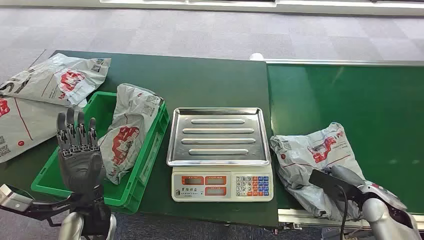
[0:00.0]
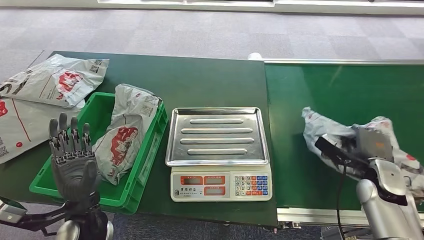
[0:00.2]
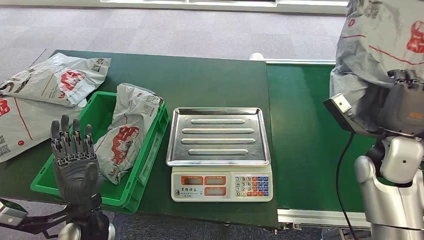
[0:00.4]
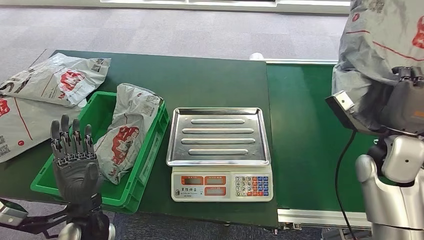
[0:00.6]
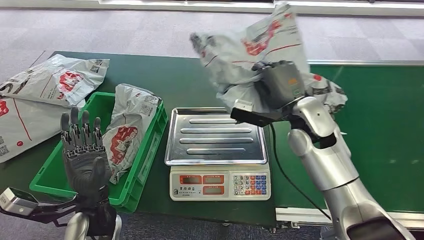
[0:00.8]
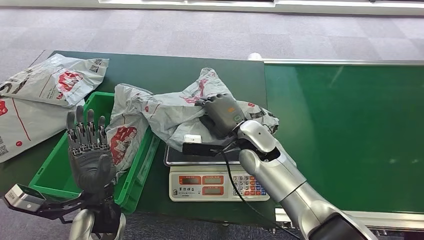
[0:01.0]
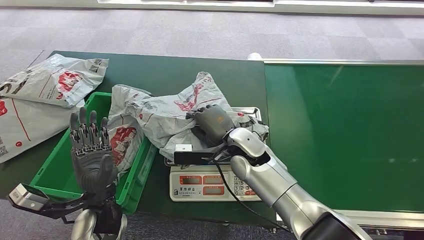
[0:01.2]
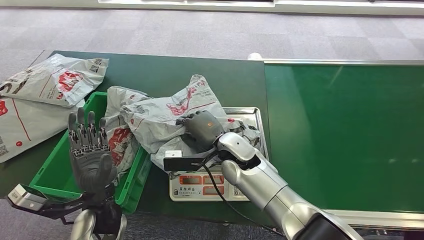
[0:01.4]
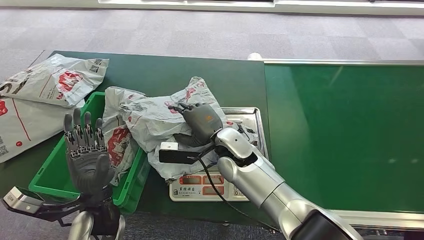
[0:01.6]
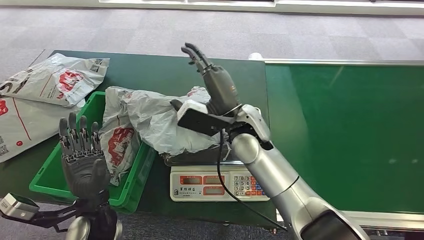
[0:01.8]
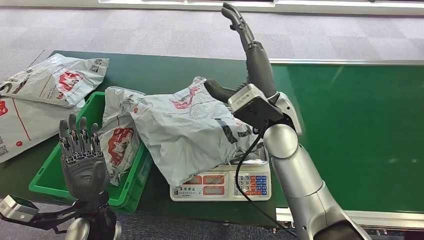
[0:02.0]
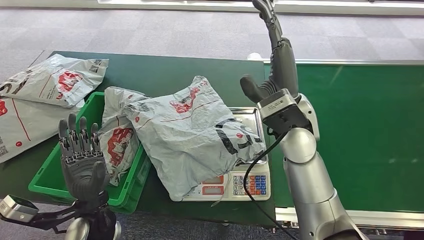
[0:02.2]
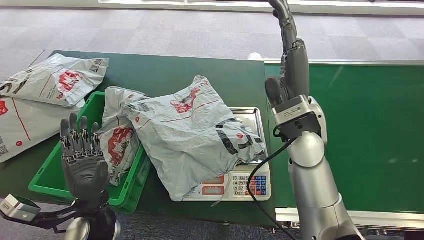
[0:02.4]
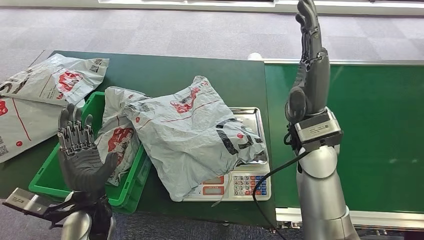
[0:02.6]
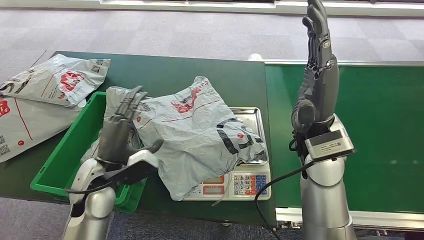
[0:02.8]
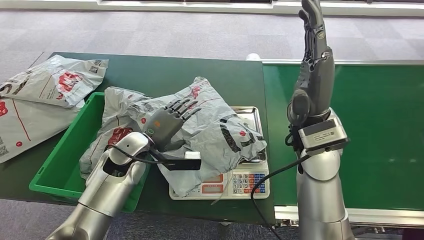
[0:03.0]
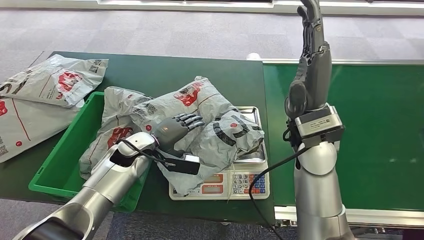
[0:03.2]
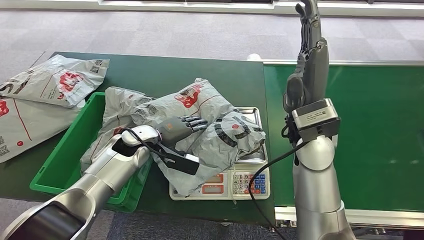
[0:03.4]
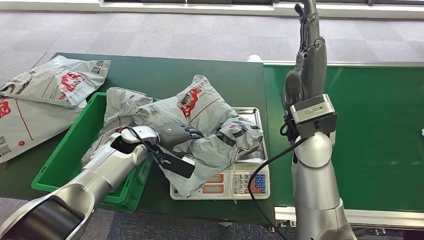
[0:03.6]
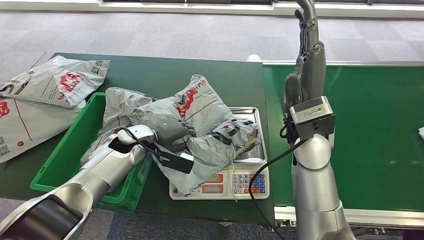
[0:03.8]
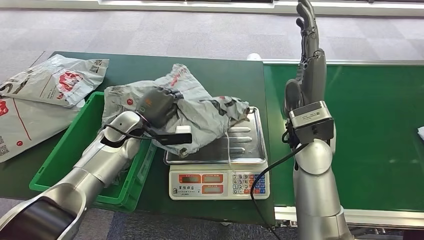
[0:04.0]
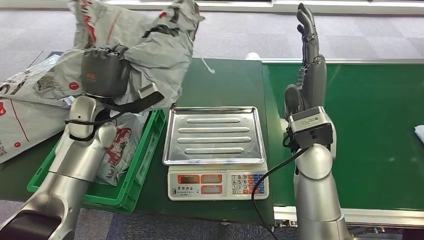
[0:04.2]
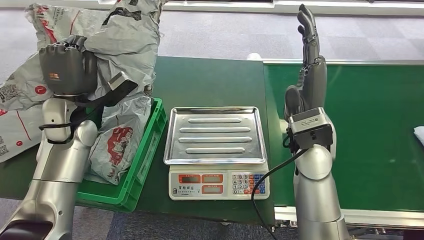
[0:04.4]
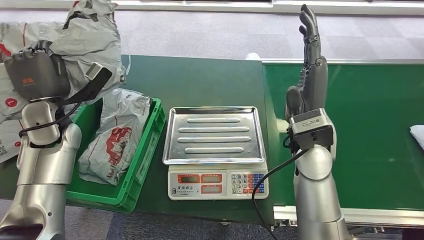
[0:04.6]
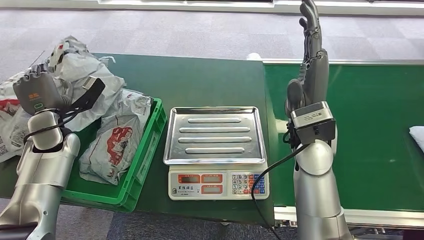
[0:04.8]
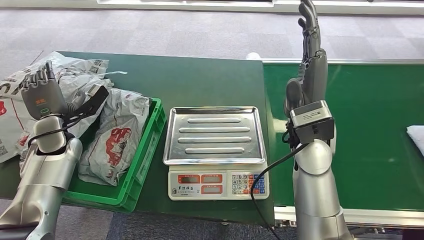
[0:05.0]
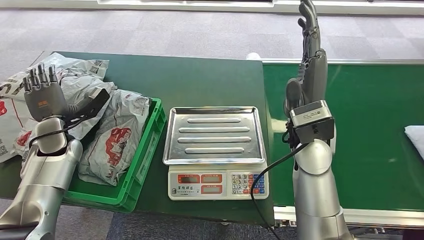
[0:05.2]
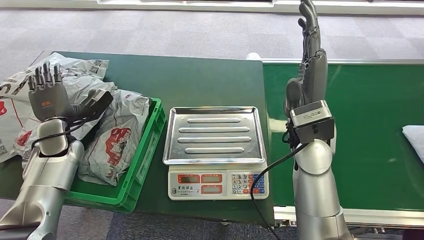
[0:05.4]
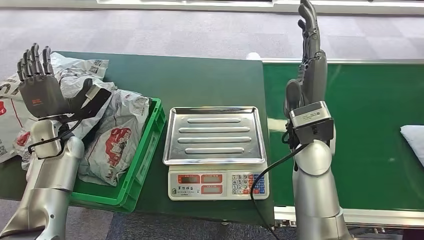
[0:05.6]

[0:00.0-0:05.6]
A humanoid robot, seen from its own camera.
Step, 0:00.0 to 0:00.8: Pick up the package from the conveyor belt.
Step, 0:01.0 to 0:02.0: Place the package onto the inbound machine.
Step, 0:02.2 to 0:04.2: Pick up the package from the inbound machine.
Step, 0:04.4 to 0:05.4: Place the package into the parcel locker.
